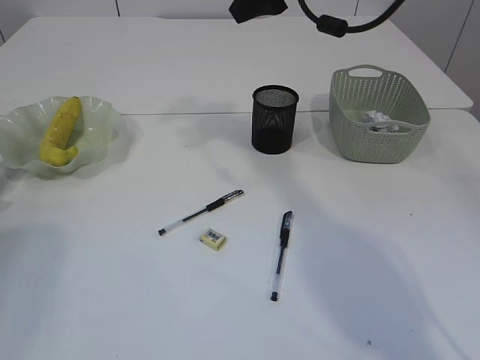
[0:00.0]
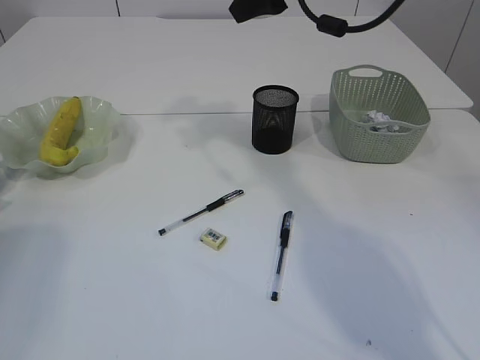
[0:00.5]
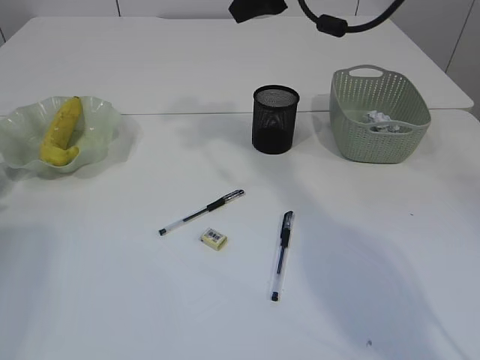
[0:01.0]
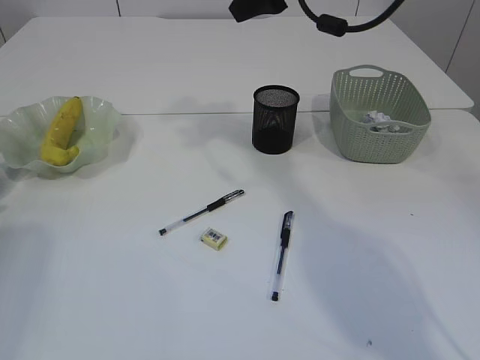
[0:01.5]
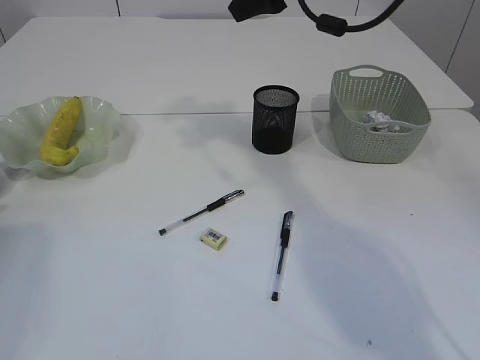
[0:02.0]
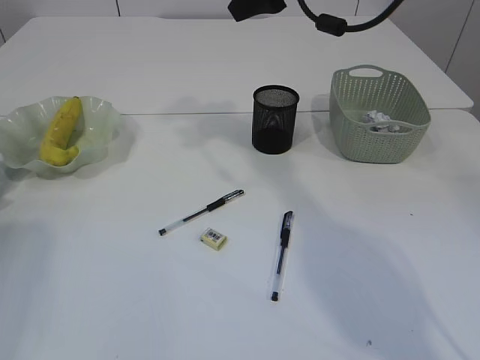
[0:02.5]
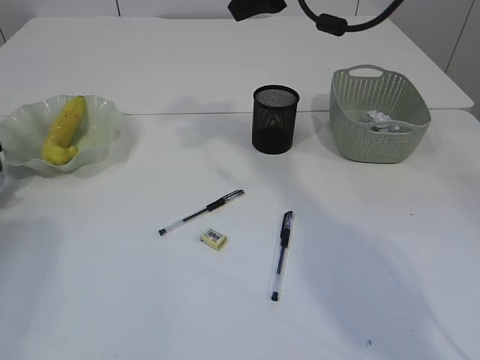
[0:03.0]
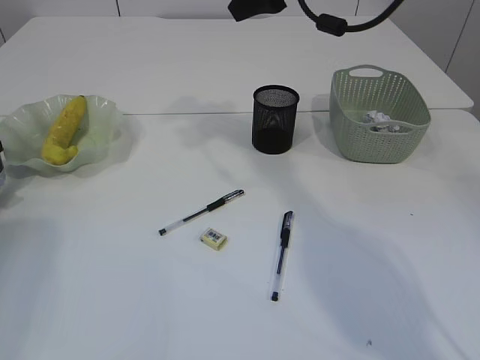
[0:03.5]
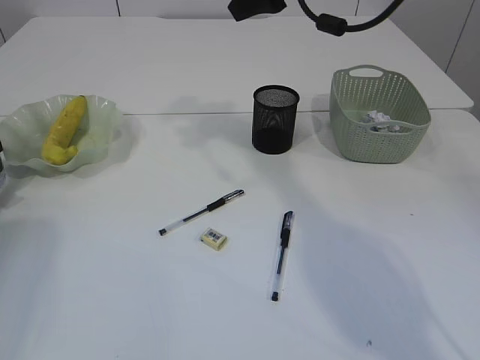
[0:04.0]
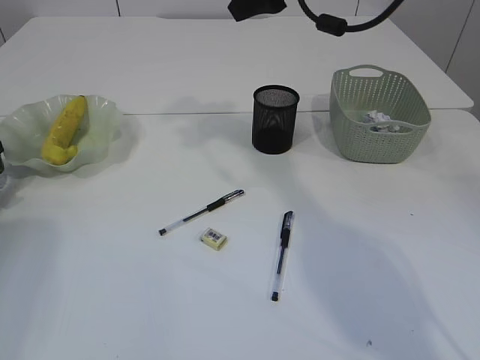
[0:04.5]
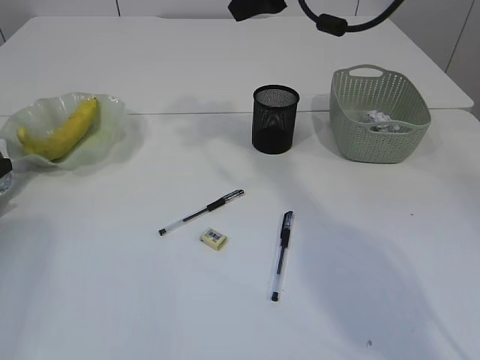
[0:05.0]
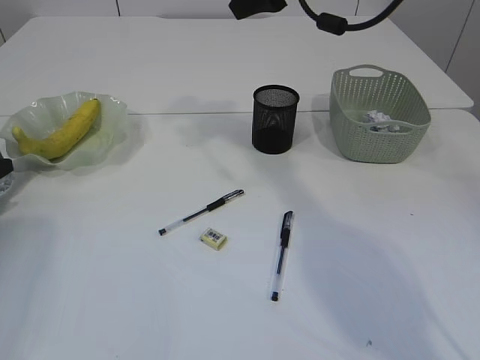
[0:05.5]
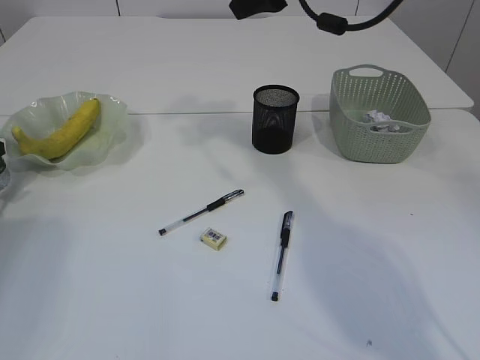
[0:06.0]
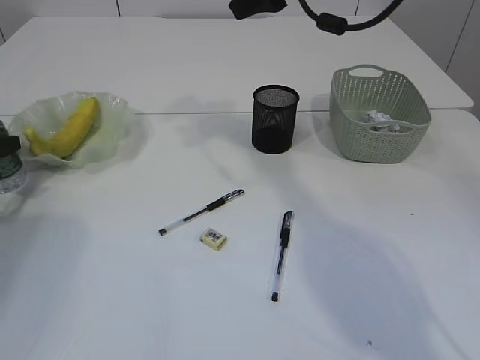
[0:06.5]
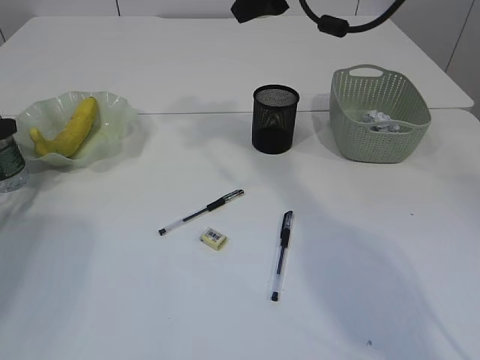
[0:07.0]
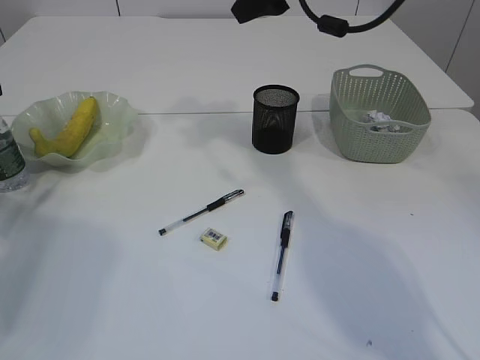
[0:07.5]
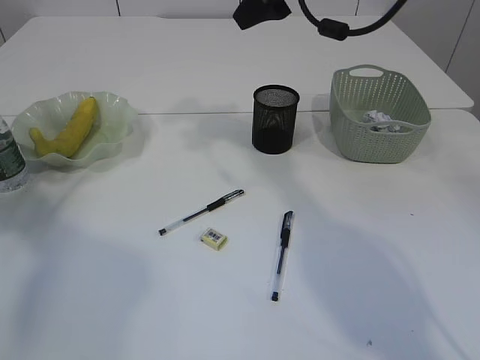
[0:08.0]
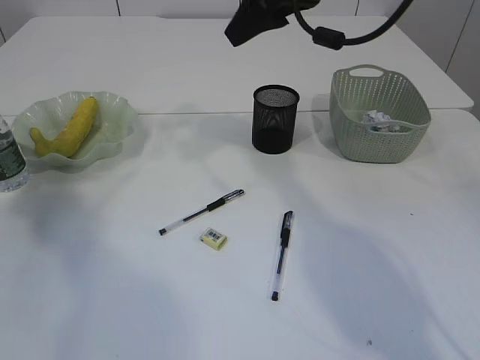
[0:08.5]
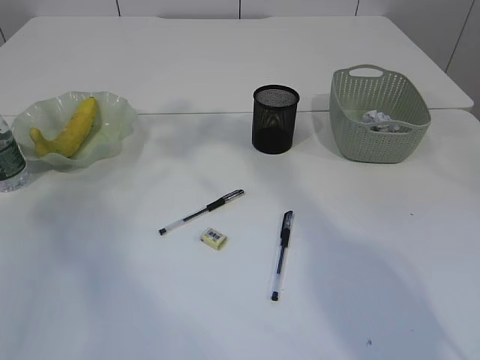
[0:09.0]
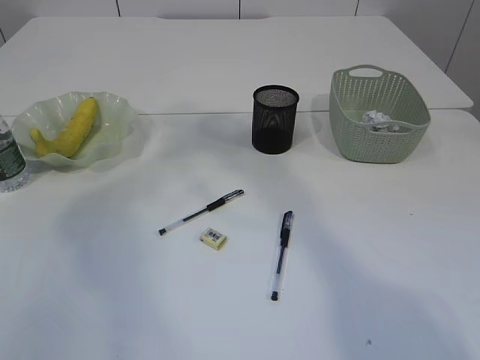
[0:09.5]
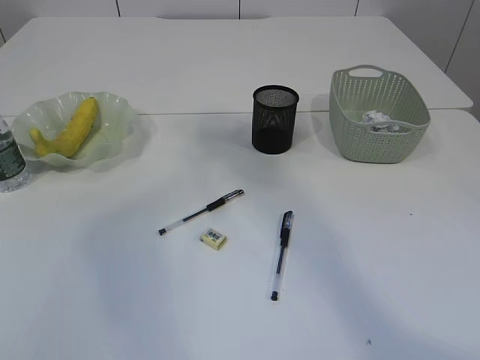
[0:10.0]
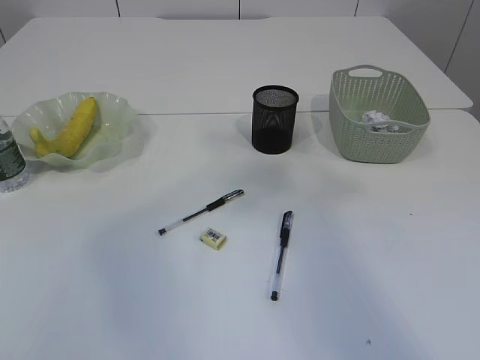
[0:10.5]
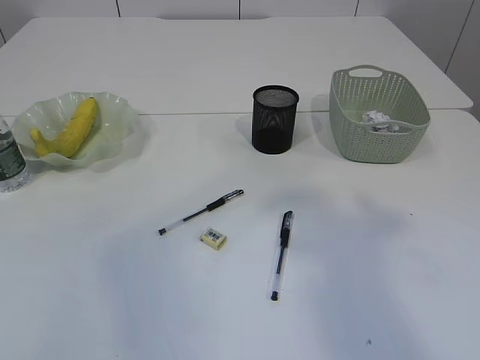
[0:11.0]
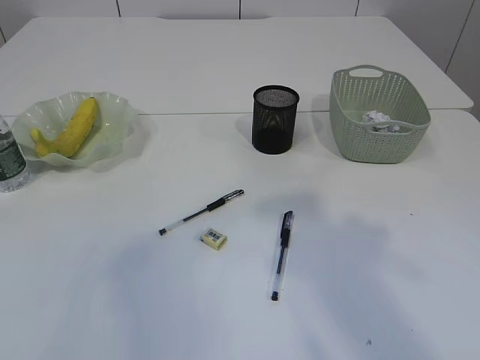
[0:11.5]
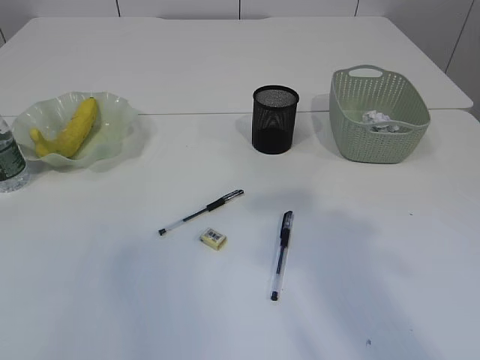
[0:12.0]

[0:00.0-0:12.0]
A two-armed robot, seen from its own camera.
Step, 0.0 to 8.0 s: Place the bottle.
4.0 to 6.0 s: There are only small adjustments of the grippers.
6.0 to 8.0 s: The left gripper travels upward by some 15 cm.
8.0 to 10.0 s: The left gripper is displaced upward, backward and to the right by approximately 30 cm. The right gripper goes about 25 cm upward and backward.

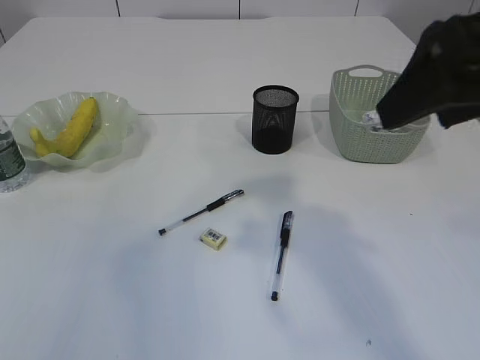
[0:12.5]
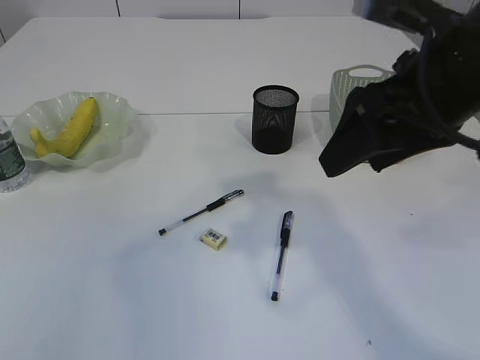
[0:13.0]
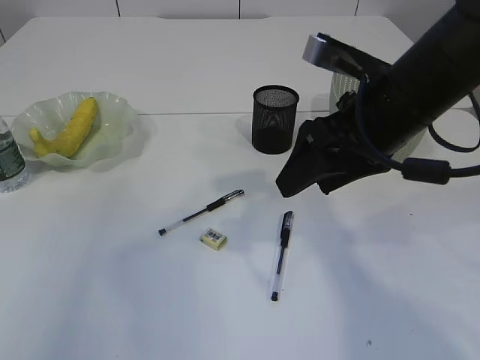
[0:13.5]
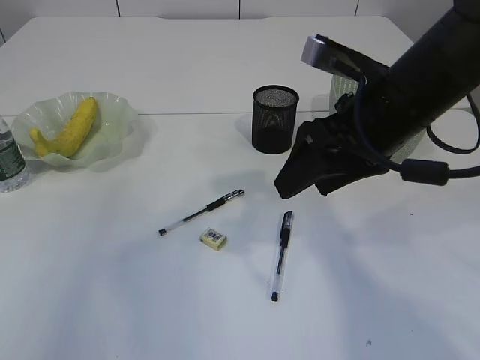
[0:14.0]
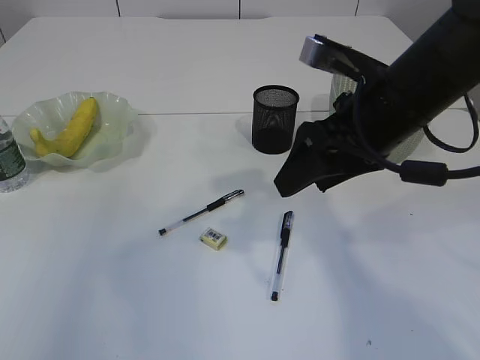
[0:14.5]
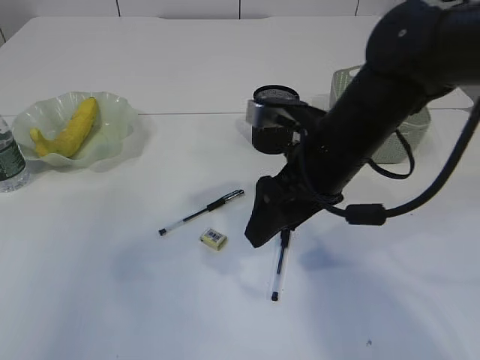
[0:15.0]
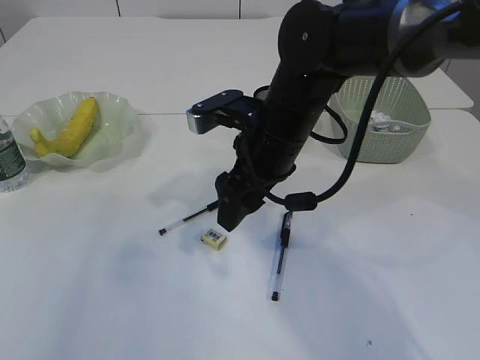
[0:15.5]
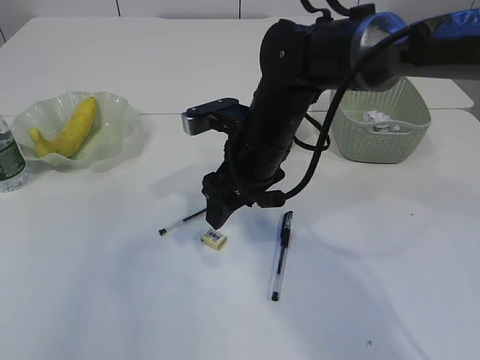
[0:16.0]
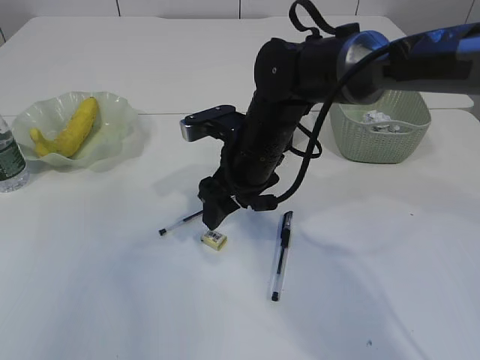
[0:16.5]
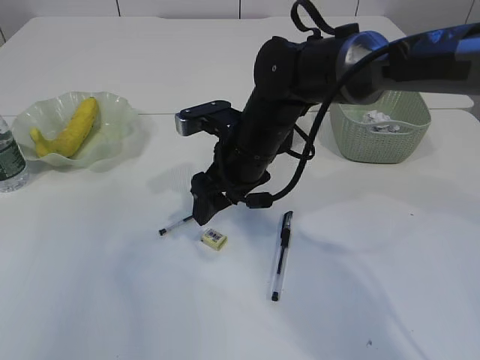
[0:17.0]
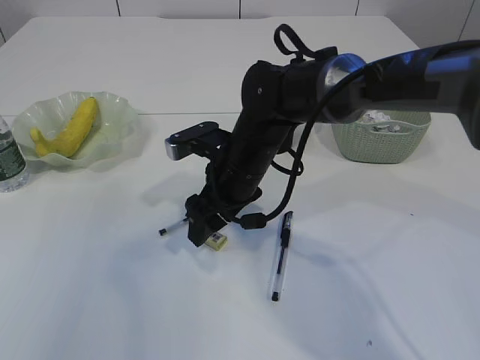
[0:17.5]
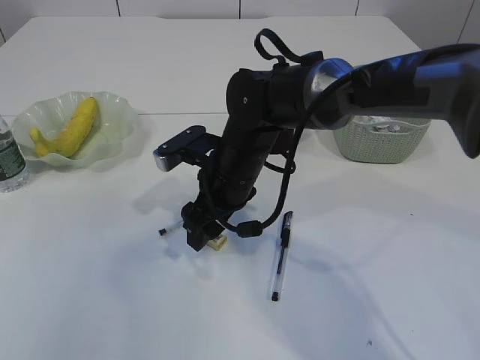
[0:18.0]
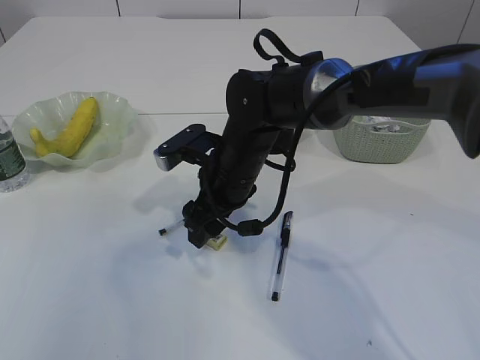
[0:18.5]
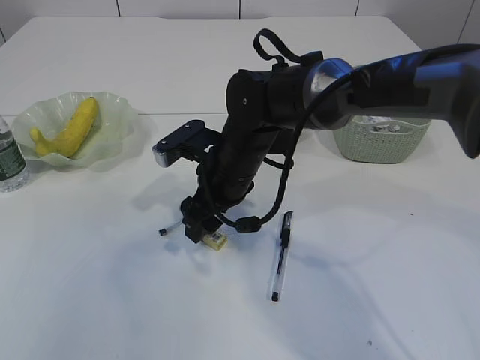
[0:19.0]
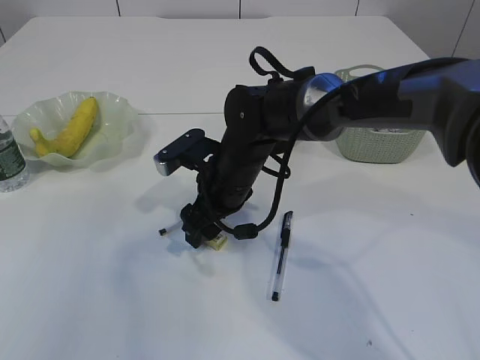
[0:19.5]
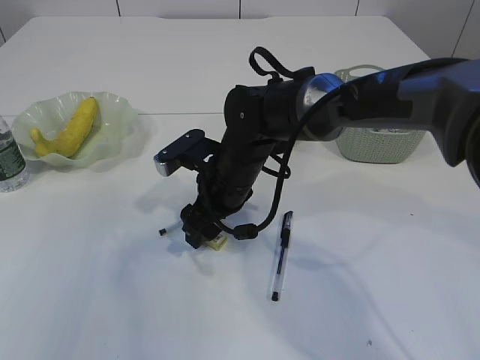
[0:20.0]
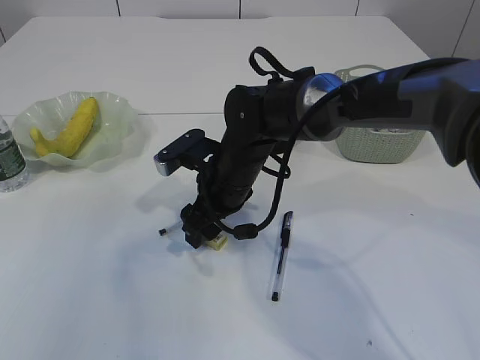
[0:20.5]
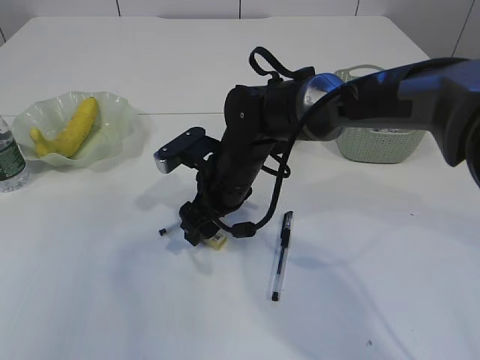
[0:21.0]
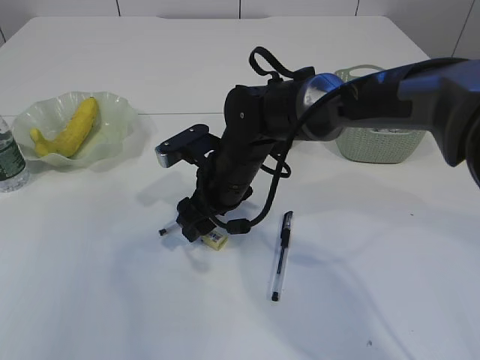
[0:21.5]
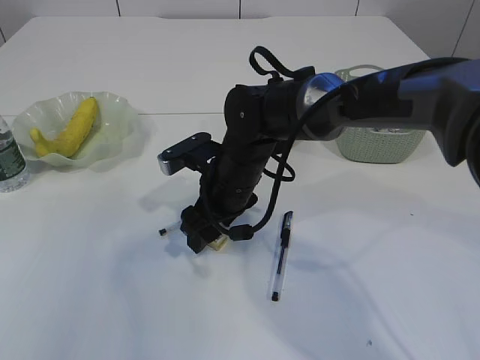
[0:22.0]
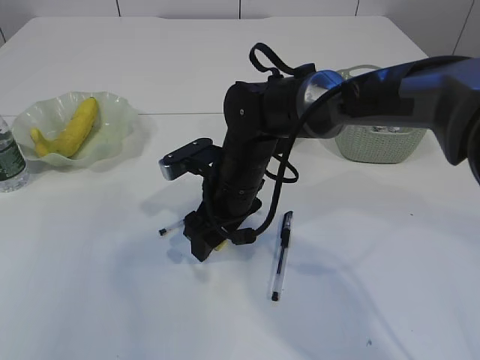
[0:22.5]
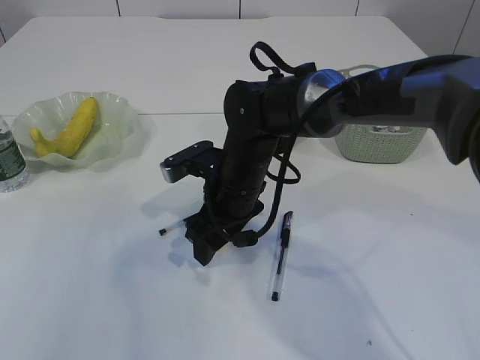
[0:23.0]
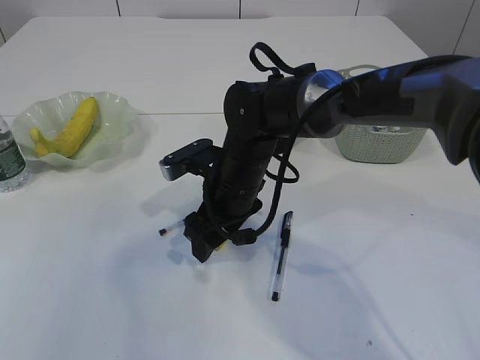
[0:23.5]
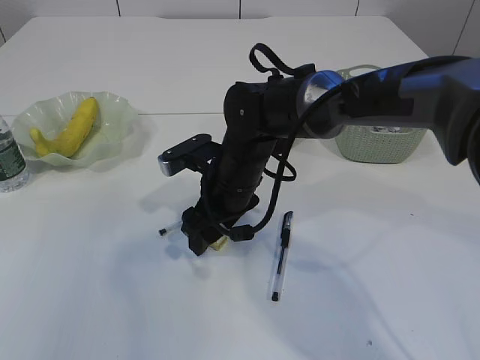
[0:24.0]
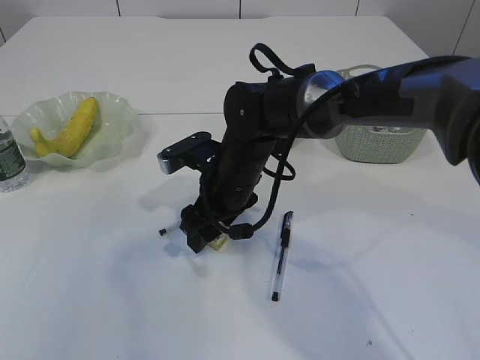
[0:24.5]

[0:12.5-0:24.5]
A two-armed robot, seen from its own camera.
12.5 to 14.5 s: The right gripper shifts about 15 cm downward and forward.
14.5 to 16.5 s: The right gripper shifts about 15 cm to the left, downward and forward.
16.5 to 22.5 s: The grippers move only a little.
22.5 to 24.5 s: Both grippers stay about where they are.

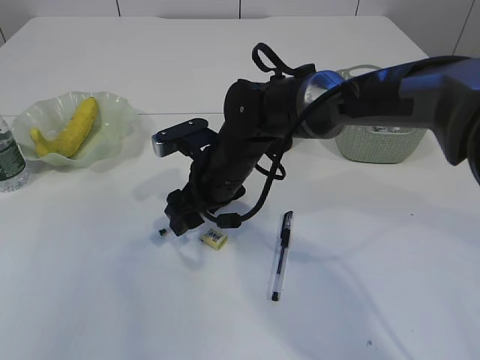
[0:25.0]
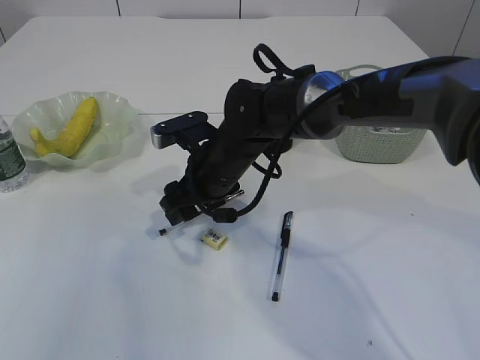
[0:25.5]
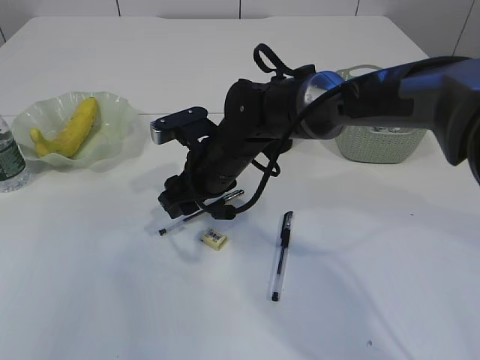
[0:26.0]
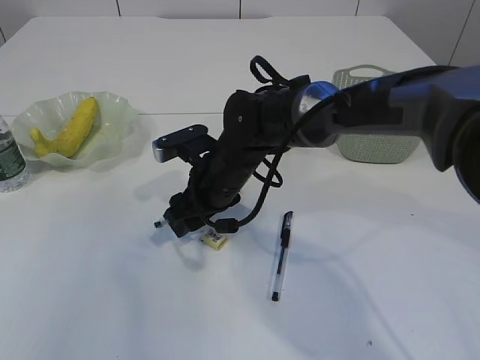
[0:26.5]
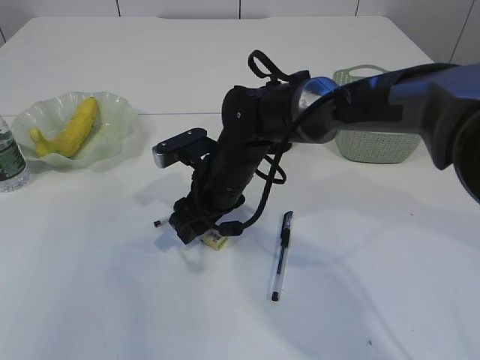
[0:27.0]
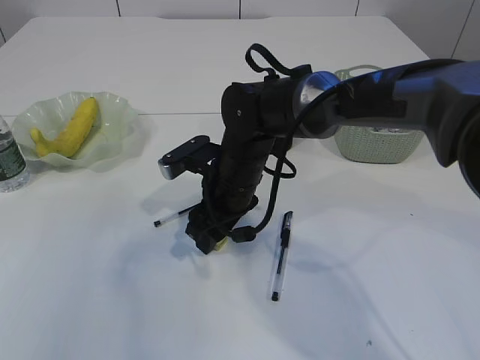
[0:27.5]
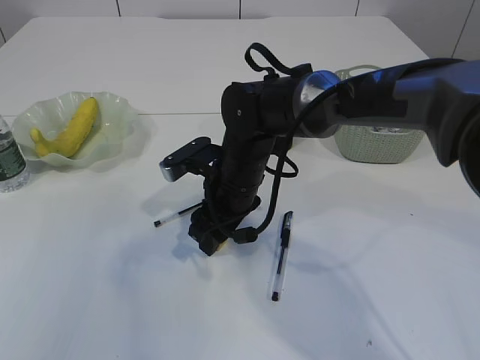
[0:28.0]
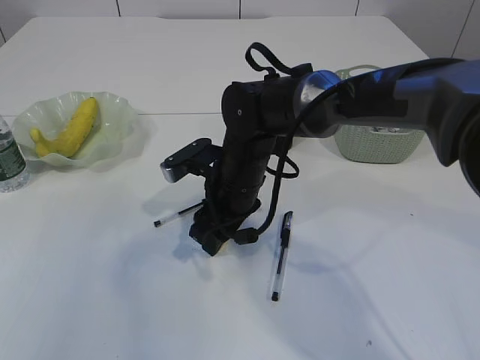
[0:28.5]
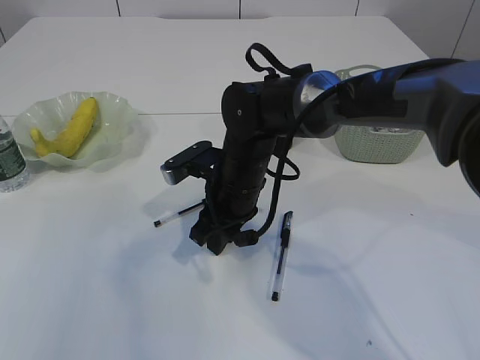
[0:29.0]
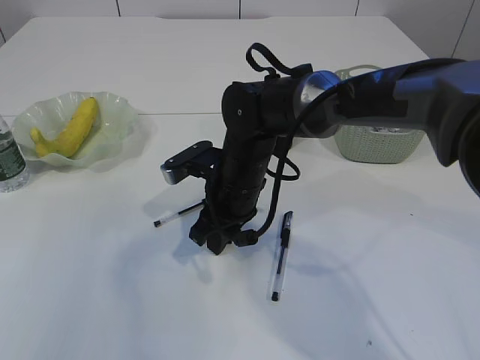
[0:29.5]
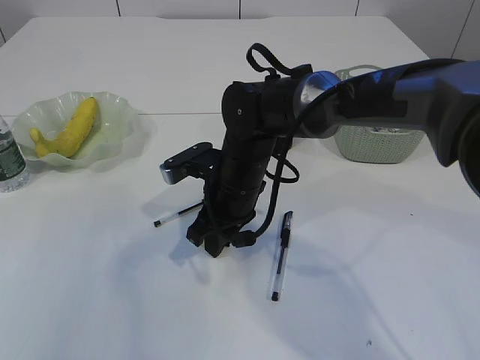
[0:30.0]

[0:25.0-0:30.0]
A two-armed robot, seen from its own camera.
25.0 to 27.5 s: There are only small adjustments of the grippers.
27.5 to 30.0 s: The right gripper closes its fingers.
